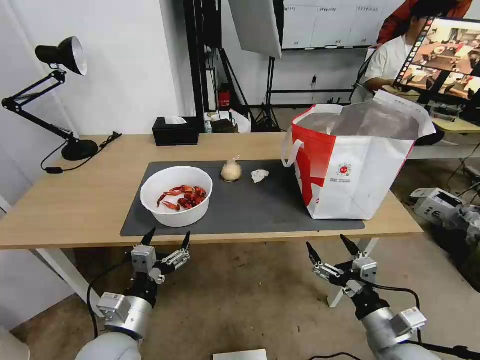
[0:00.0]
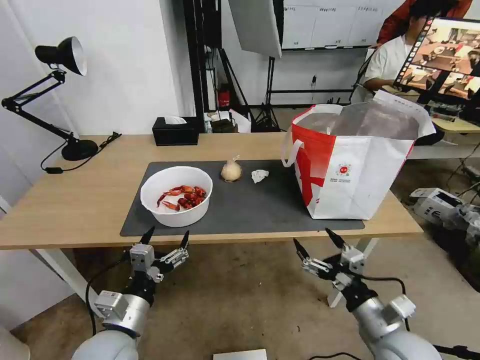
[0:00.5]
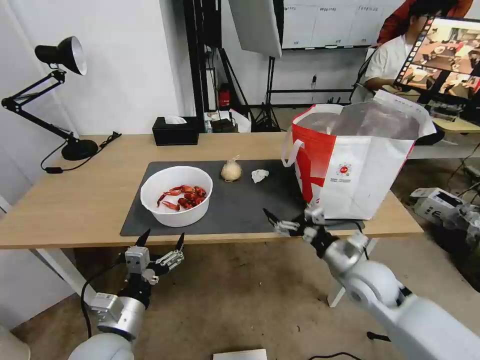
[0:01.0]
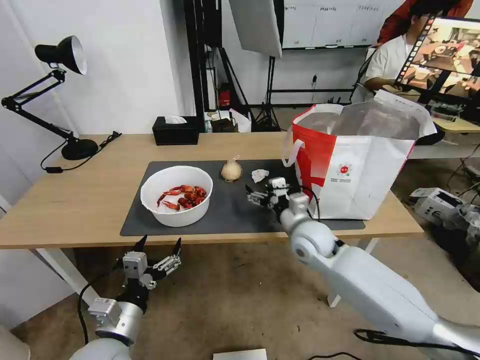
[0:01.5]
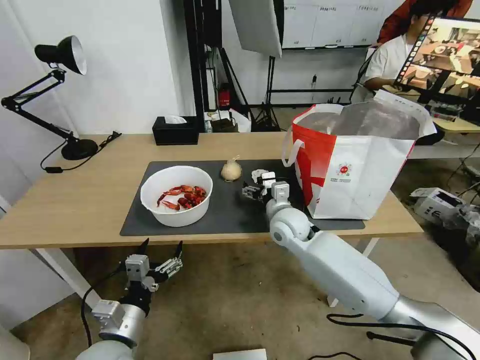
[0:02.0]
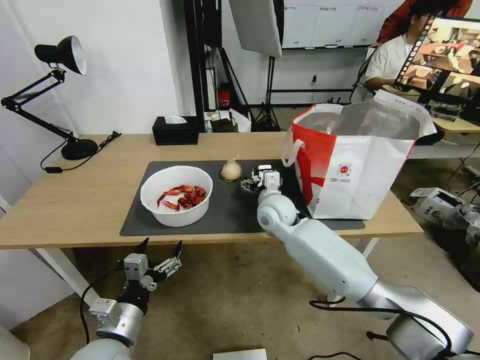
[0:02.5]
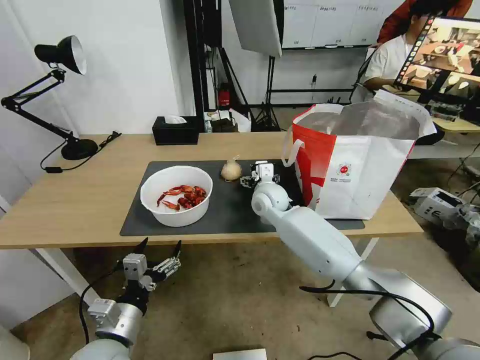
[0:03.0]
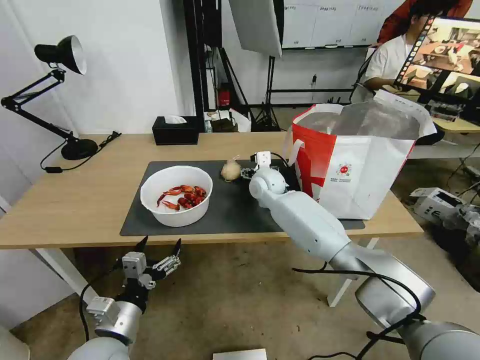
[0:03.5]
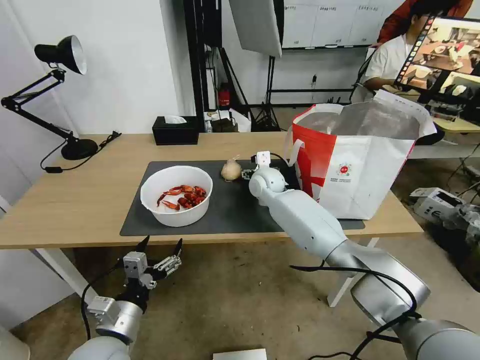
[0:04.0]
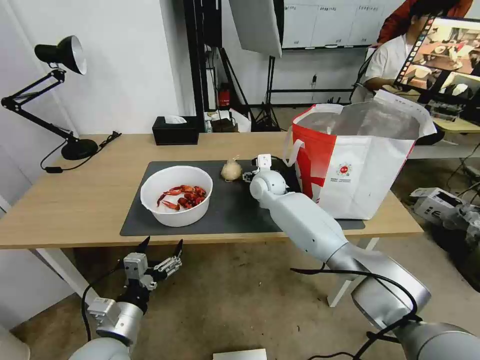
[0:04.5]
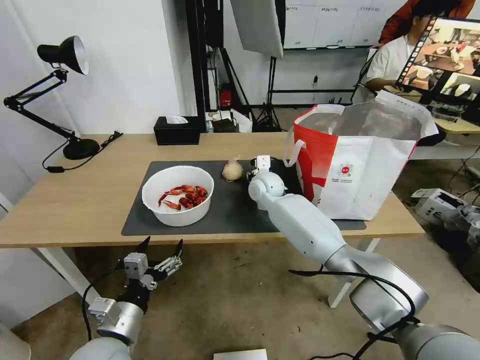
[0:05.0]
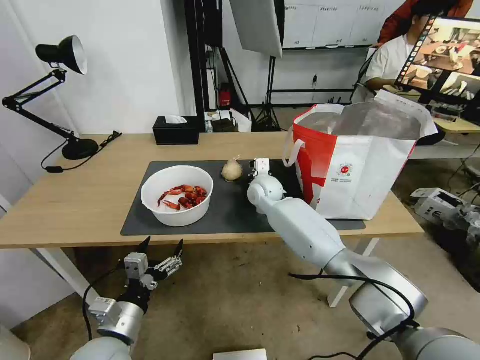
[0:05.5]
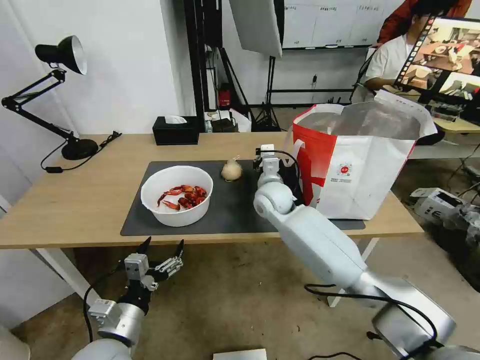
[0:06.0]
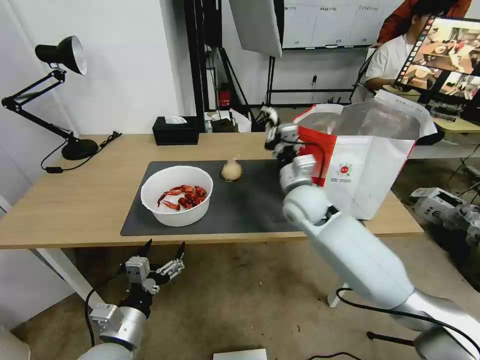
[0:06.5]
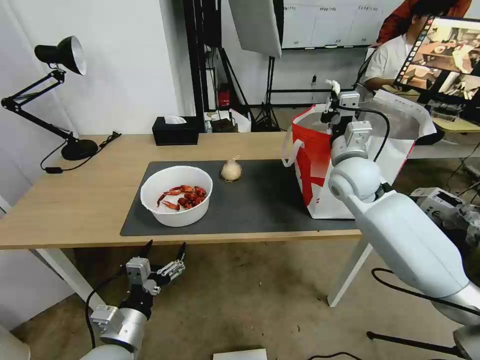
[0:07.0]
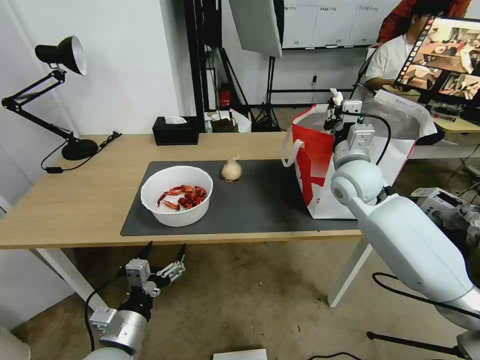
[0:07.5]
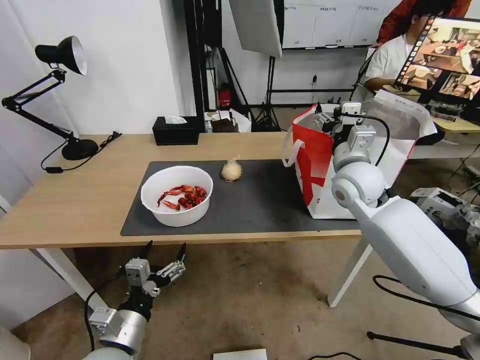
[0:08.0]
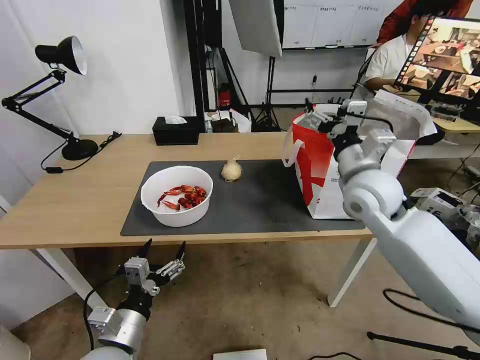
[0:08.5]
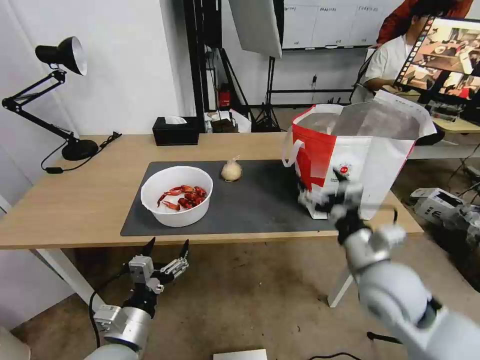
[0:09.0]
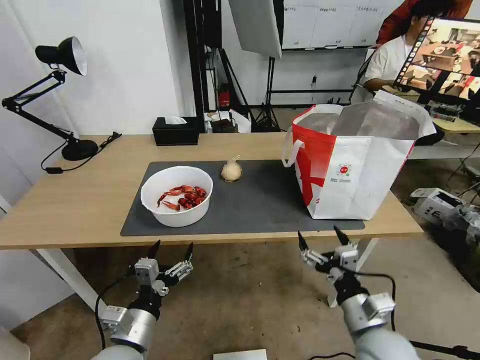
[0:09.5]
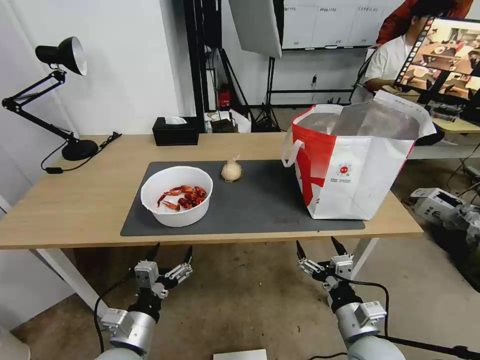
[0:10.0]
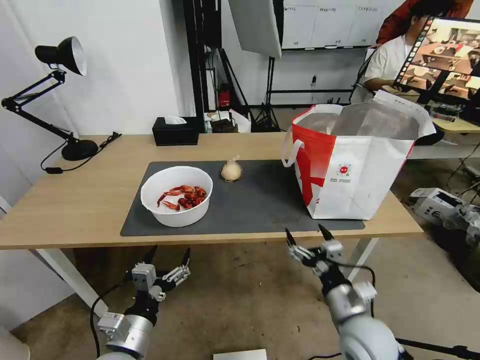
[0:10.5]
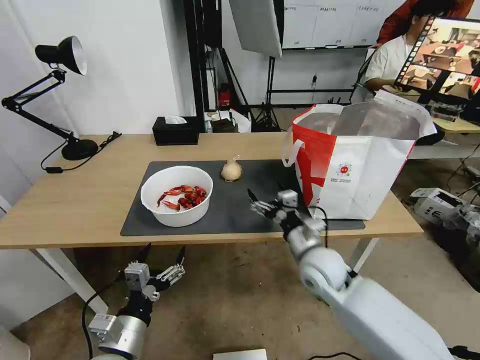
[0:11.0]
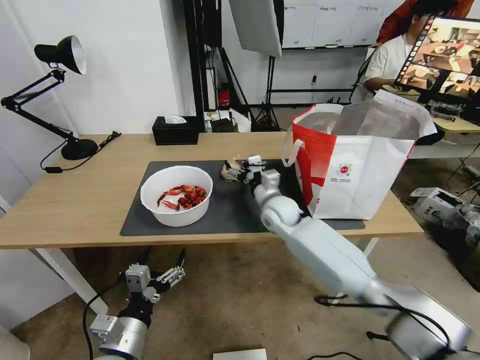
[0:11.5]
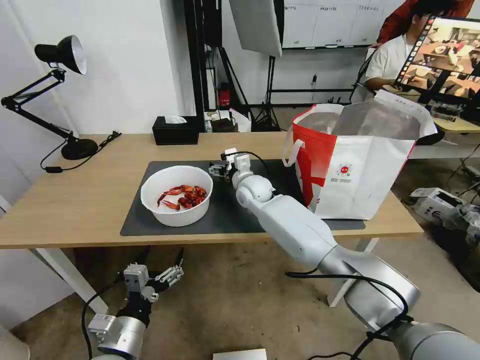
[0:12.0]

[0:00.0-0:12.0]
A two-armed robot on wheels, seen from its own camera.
Task of the whole recording: Pick up the trash from the table and place it into the takeout bag.
0:00.0 to 0:02.0: The right gripper is displaced forward and to the left by about 35 cm.
0:02.0 to 0:04.0: The right gripper shifts roughly 15 cm forward.
0:04.0 to 0:06.0: The right gripper goes some 5 cm backward, and closes.
0:06.0 to 0:08.0: The right gripper moves to the right and upward, some 20 cm, and opens its fingers.
0:08.0 to 0:10.0: The right gripper goes some 35 cm backward and downward.
0:10.0 to 0:12.0: The right gripper shifts some 40 cm forward and to the left.

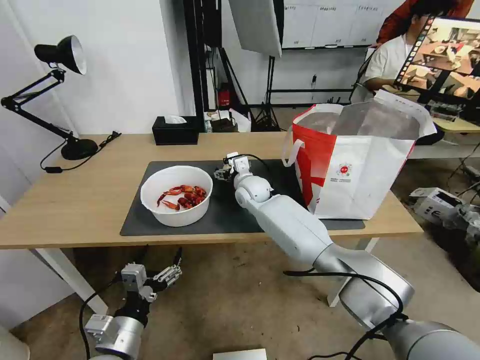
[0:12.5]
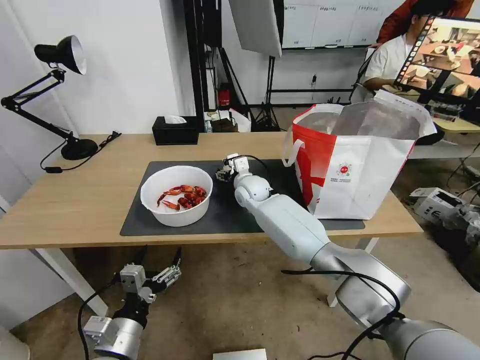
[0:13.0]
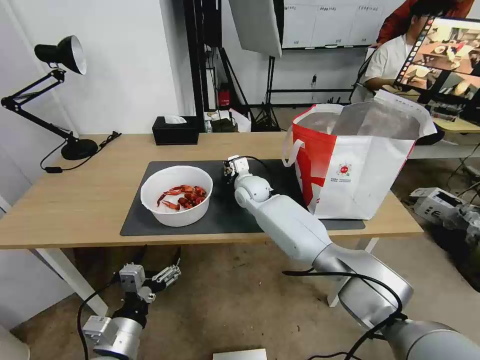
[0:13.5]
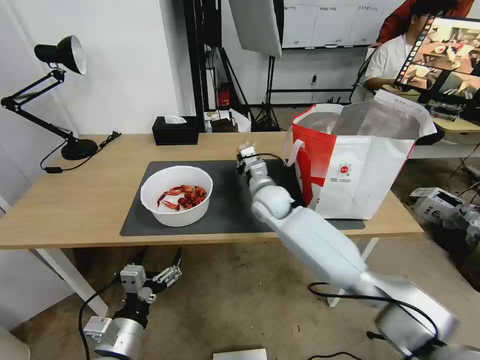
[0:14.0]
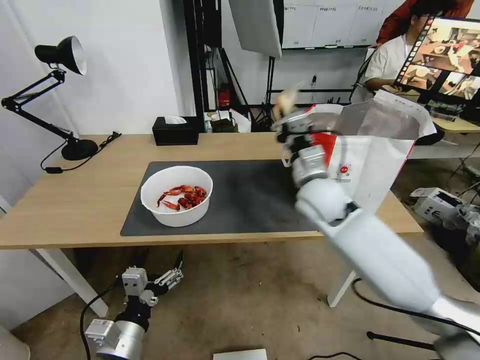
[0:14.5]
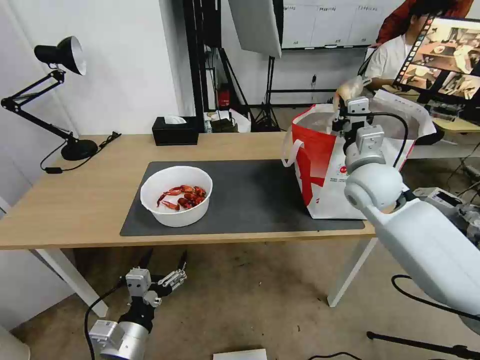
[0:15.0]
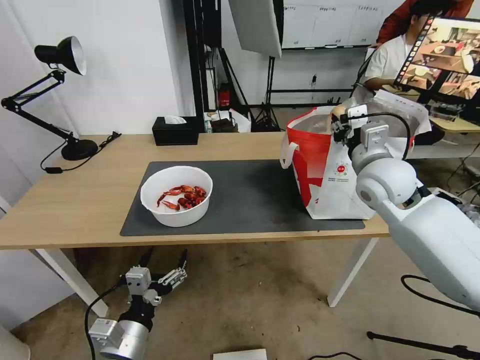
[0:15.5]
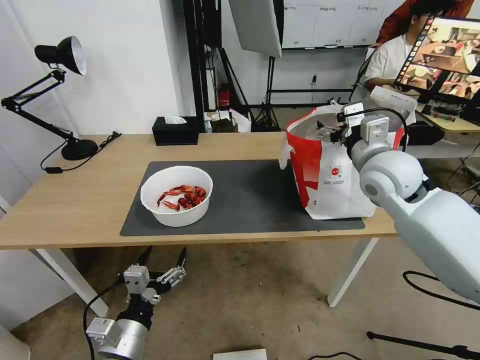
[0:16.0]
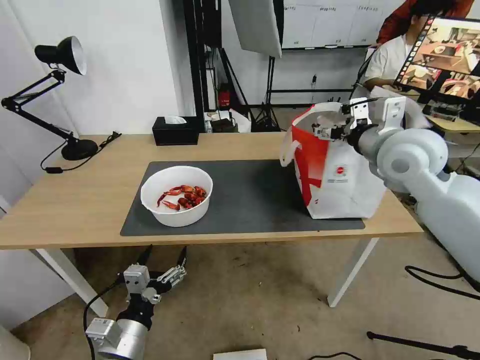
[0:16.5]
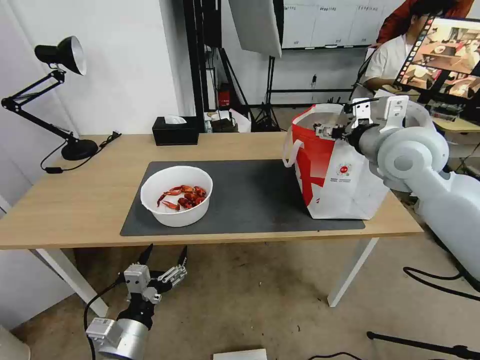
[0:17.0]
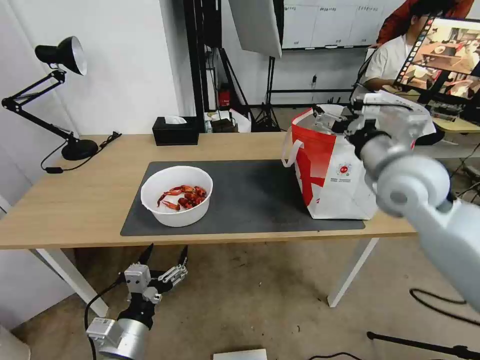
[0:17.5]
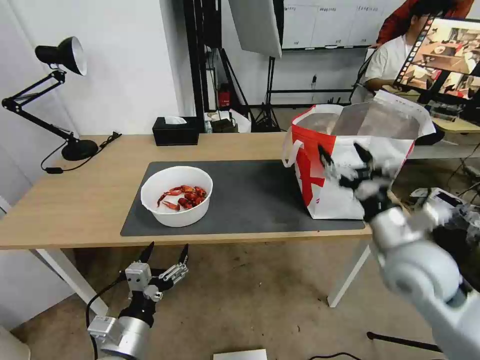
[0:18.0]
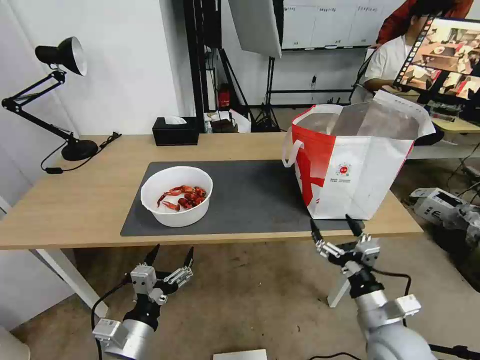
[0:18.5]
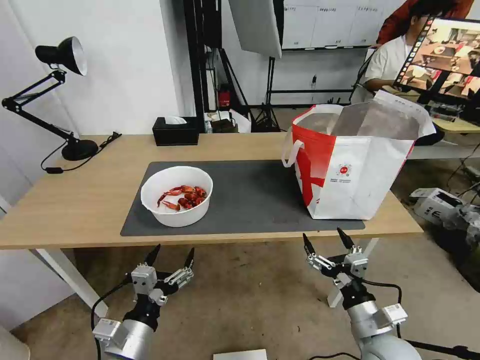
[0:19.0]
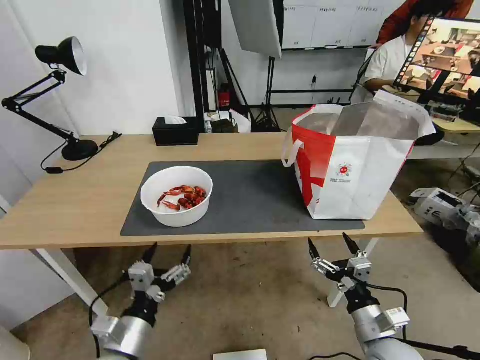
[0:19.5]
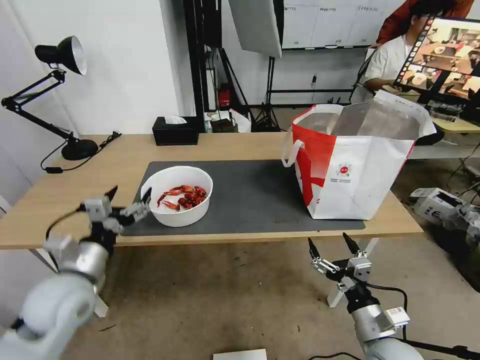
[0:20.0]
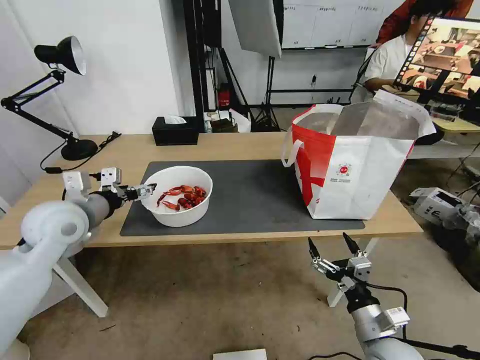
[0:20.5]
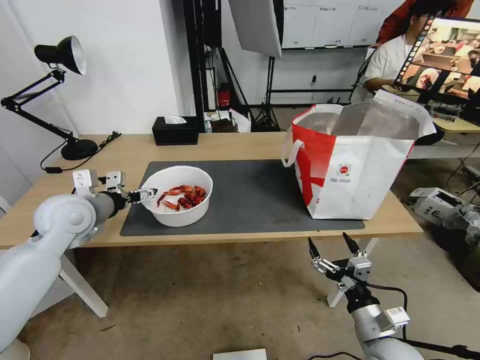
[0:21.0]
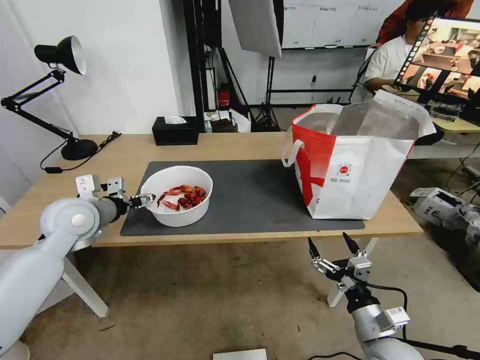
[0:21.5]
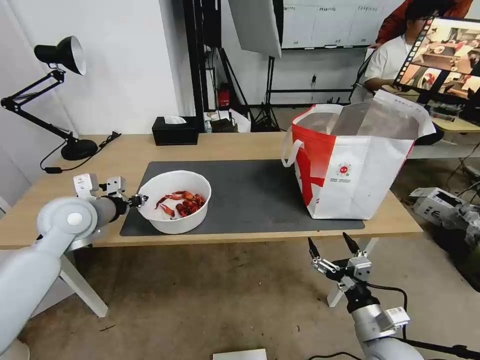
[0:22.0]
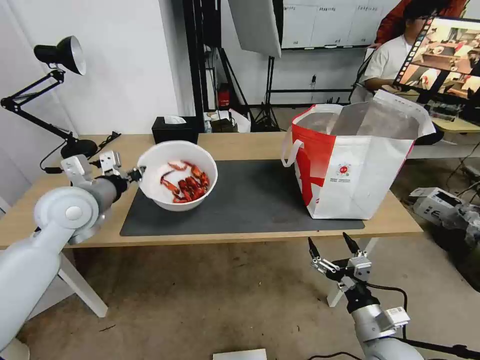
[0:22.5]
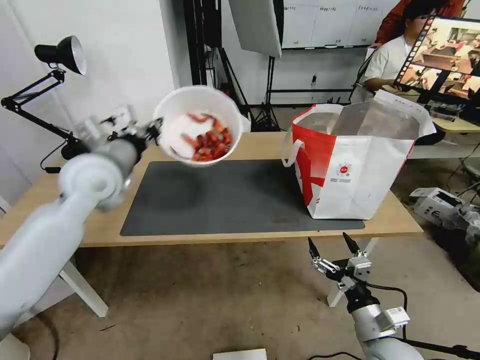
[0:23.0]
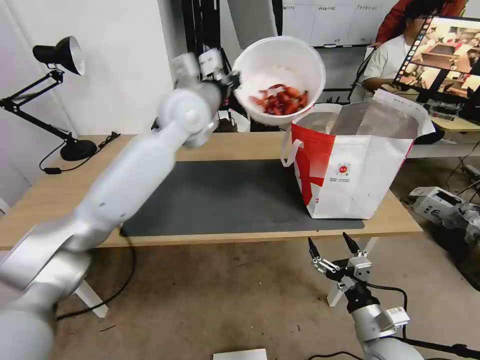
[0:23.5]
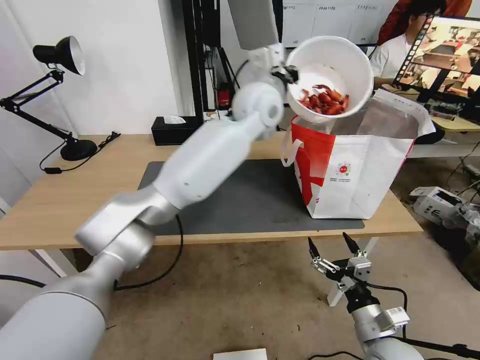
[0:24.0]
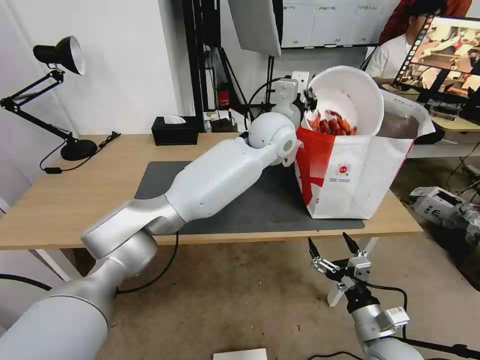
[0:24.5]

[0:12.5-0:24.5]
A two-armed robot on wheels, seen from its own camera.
Task of the whole recording: Pick up the trash from the table and place it into the takeout bag.
0:12.5 to 0:14.5: The right gripper moves to the right, backward and upward, roughly 20 cm, and closes.
0:14.5 to 0:16.5: The right gripper goes roughly 15 cm upward and to the right, and opens.
0:16.5 to 0:18.5: The right gripper travels downward and backward by roughly 35 cm.
0:18.5 to 0:20.5: The left gripper moves forward, upward and to the left, roughly 30 cm.
0:20.5 to 0:22.5: The left gripper closes its fingers.
0:22.5 to 0:24.5: The left gripper moves to the right, about 40 cm.

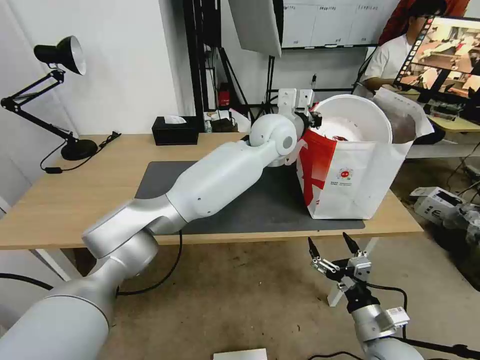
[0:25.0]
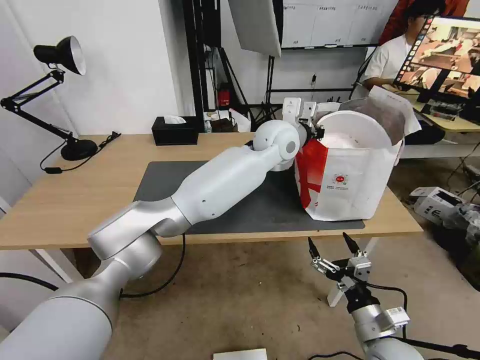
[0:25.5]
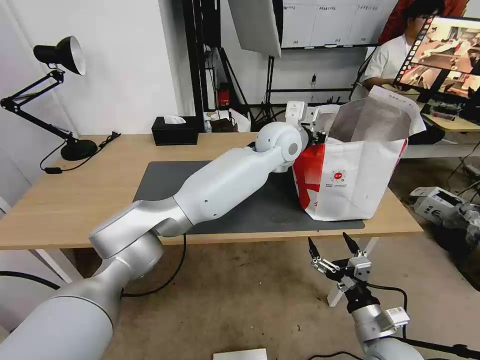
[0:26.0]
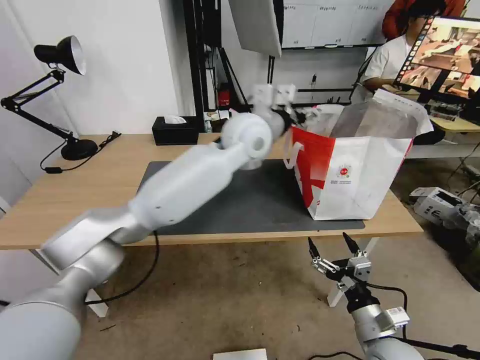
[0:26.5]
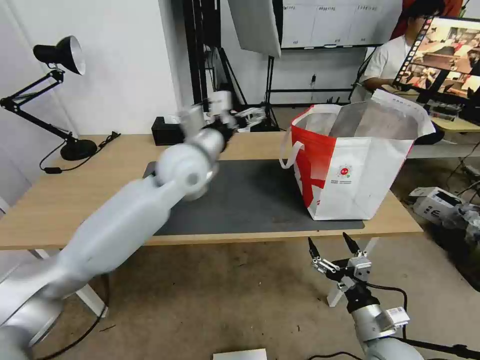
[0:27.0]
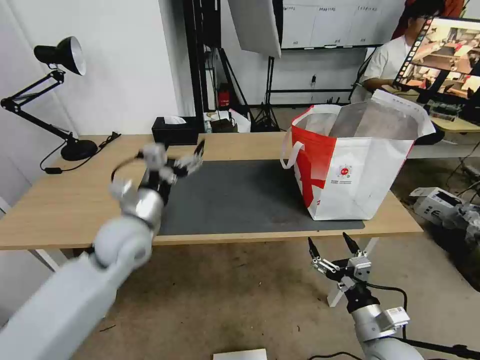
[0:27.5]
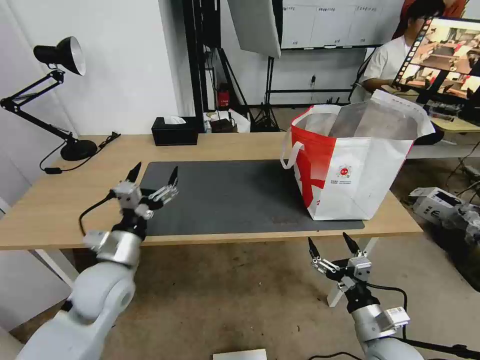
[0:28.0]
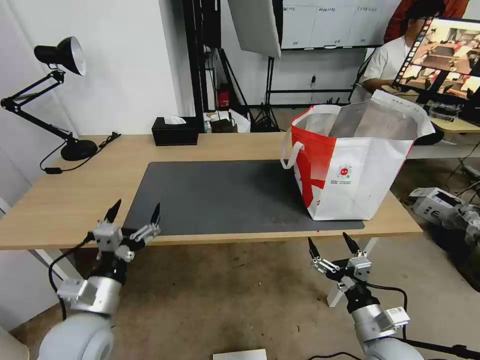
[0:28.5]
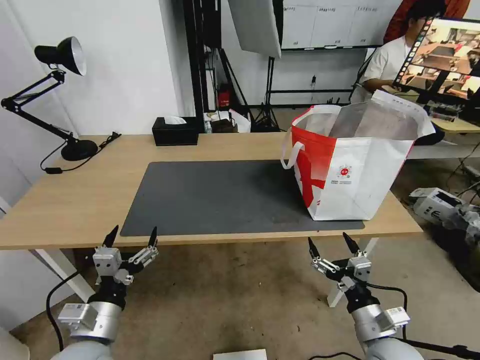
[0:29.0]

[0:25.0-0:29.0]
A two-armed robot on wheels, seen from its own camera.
Task of the whole recording: Pick up the trash from the table and place it into the takeout bag.
0:25.0 to 0:27.0: The left gripper is displaced to the left and backward by roughly 20 cm, and opens up.
0:27.0 to 0:29.0: The left gripper shifts some 40 cm backward, downward and to the left.
